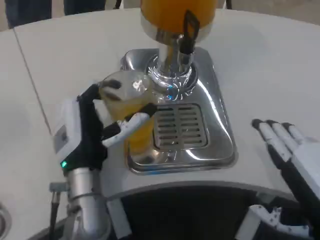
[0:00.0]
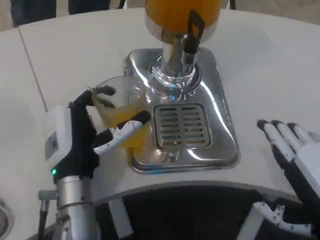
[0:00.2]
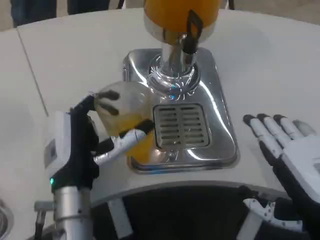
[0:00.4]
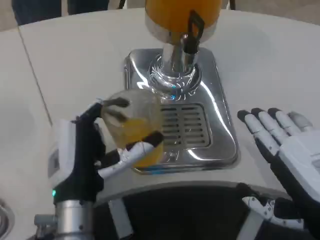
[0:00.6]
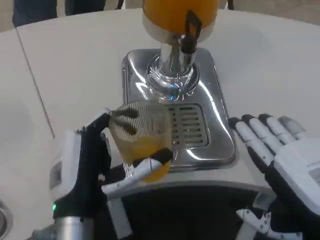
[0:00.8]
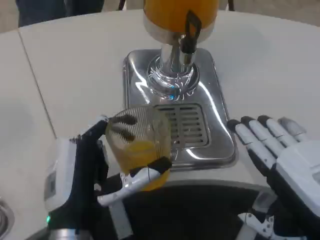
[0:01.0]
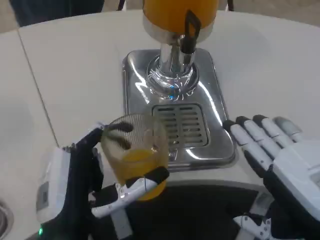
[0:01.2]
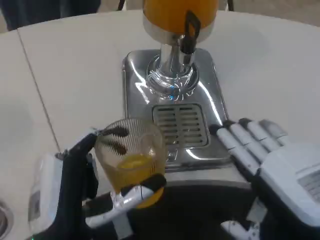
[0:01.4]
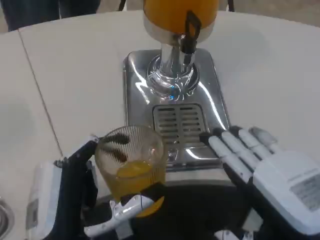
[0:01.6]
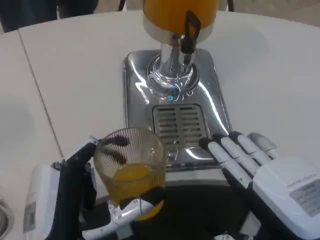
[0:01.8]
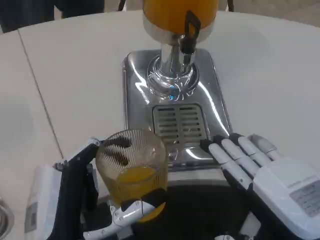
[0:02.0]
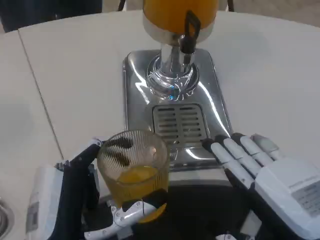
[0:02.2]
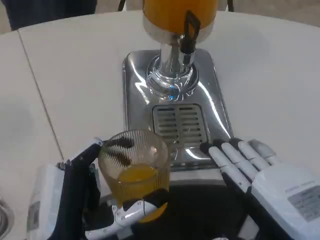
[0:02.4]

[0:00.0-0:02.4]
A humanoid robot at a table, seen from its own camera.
Task of the whole recording: Grasp the cup under the faucet to collect the drink, then remove the cup.
0.0 to 1.2 s: The left hand is displaced backward by some 10 cm.
1.2 to 2.4 s: The hands stay close to where they were, moving slightly.

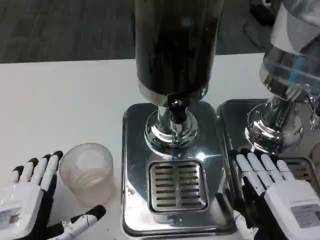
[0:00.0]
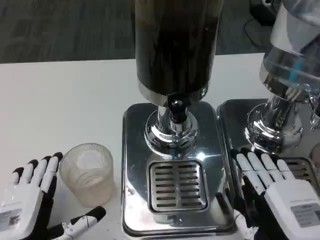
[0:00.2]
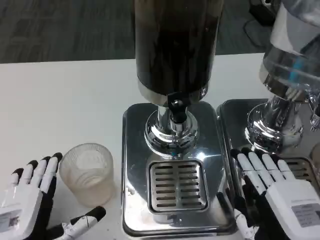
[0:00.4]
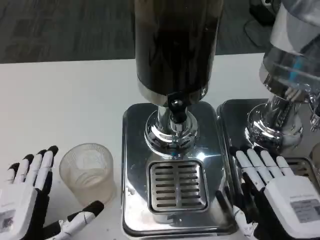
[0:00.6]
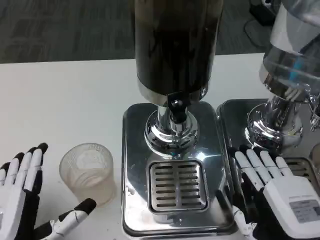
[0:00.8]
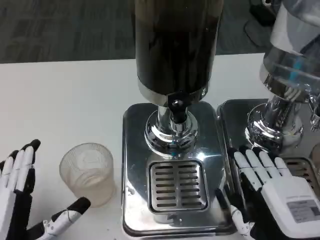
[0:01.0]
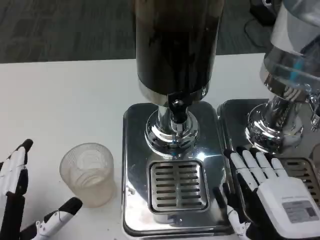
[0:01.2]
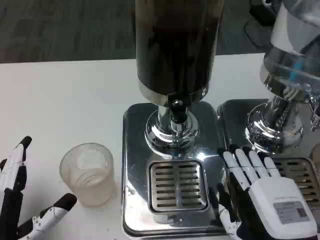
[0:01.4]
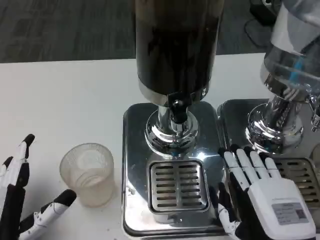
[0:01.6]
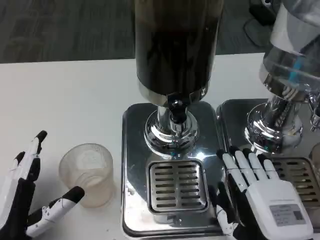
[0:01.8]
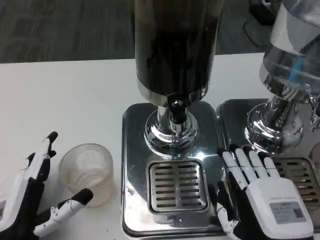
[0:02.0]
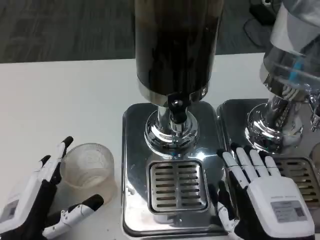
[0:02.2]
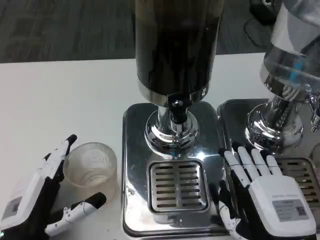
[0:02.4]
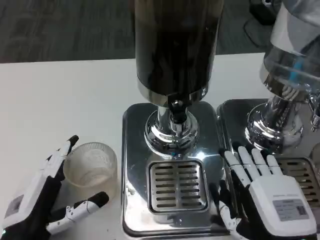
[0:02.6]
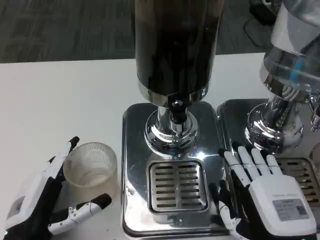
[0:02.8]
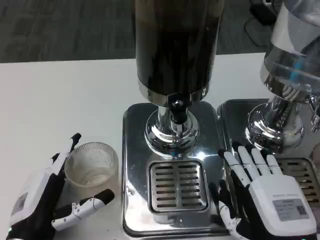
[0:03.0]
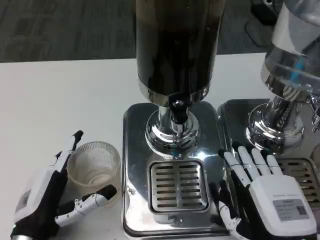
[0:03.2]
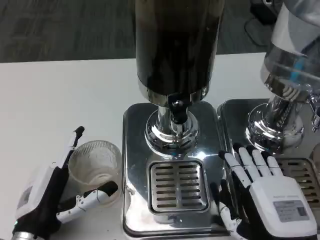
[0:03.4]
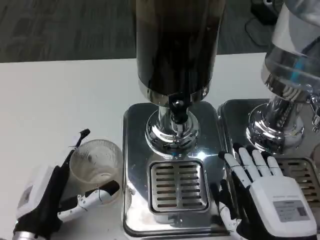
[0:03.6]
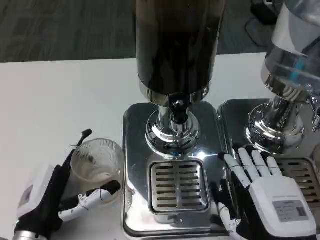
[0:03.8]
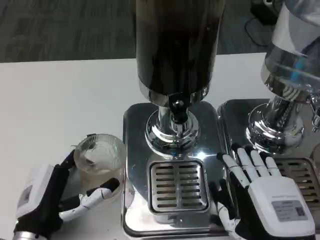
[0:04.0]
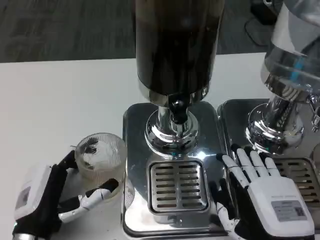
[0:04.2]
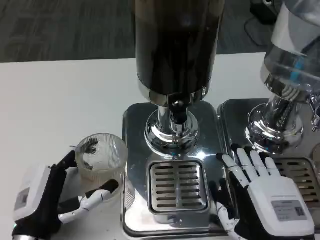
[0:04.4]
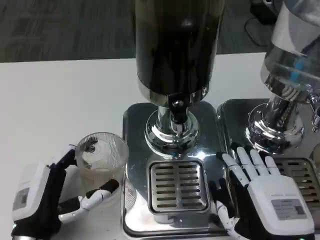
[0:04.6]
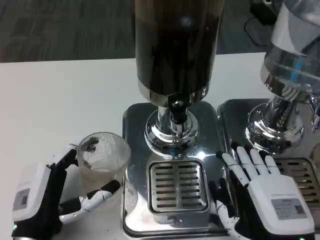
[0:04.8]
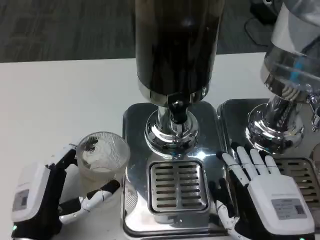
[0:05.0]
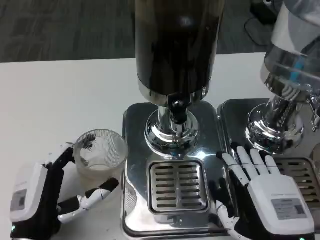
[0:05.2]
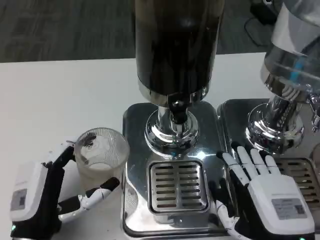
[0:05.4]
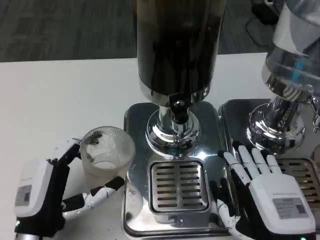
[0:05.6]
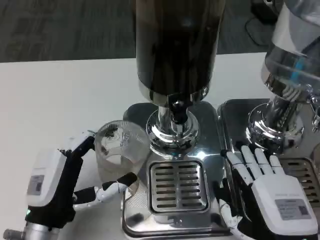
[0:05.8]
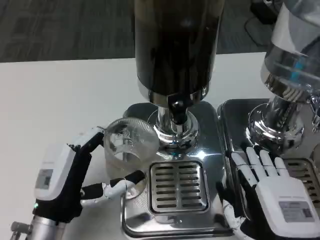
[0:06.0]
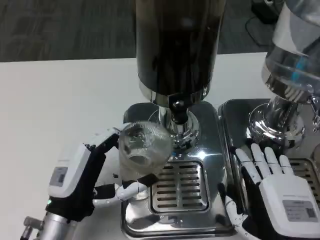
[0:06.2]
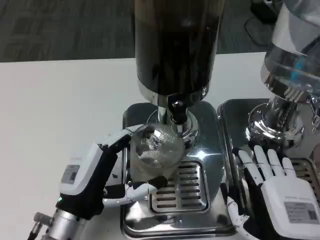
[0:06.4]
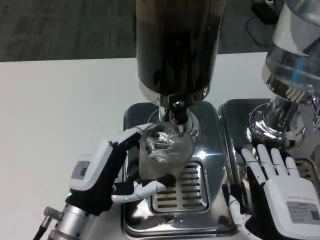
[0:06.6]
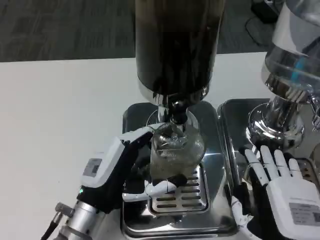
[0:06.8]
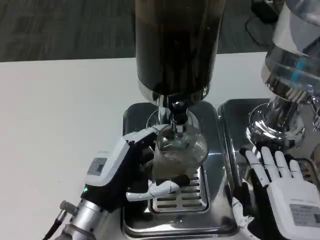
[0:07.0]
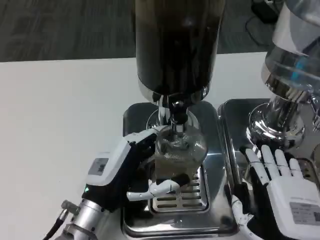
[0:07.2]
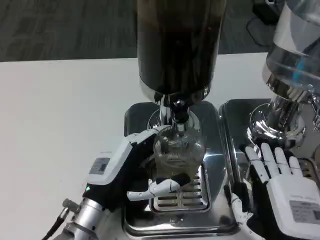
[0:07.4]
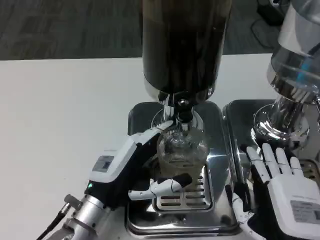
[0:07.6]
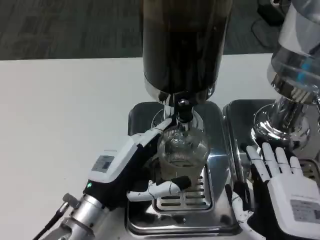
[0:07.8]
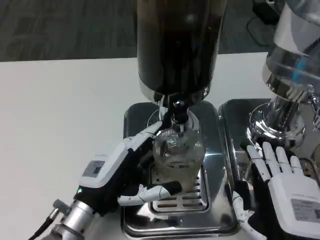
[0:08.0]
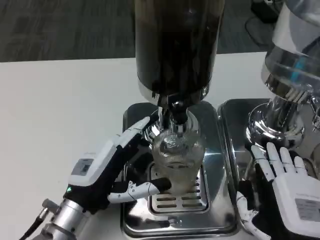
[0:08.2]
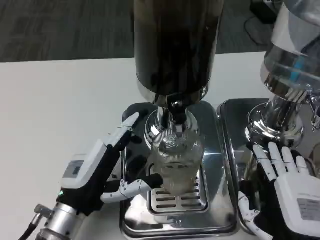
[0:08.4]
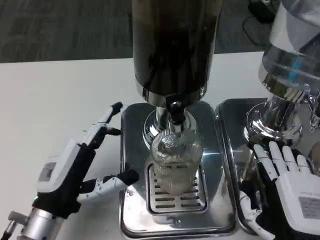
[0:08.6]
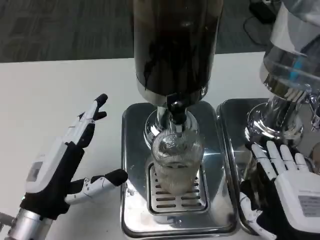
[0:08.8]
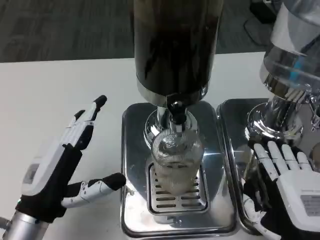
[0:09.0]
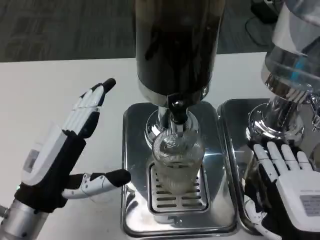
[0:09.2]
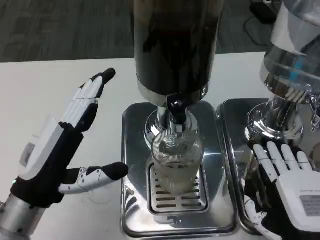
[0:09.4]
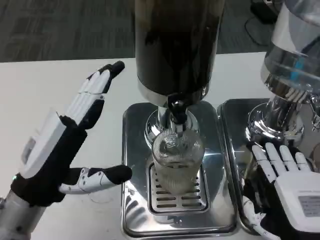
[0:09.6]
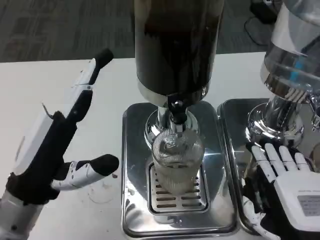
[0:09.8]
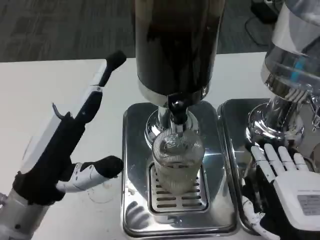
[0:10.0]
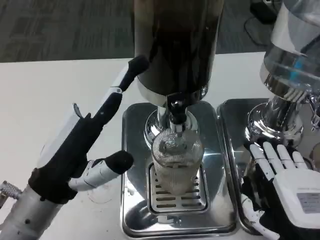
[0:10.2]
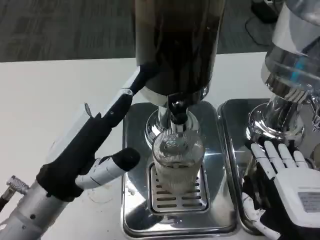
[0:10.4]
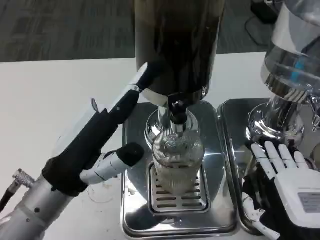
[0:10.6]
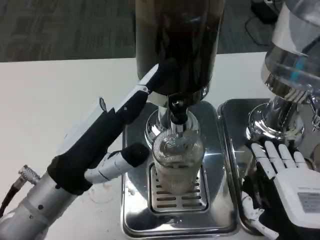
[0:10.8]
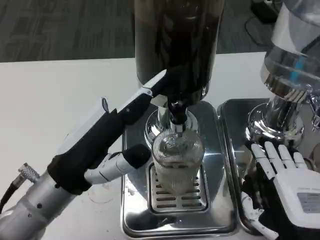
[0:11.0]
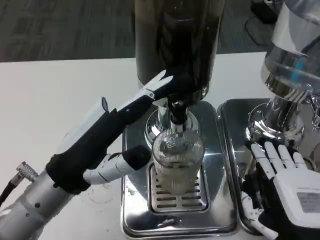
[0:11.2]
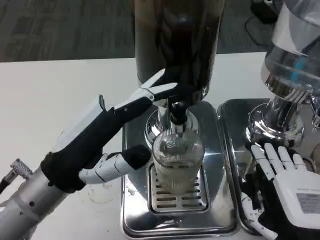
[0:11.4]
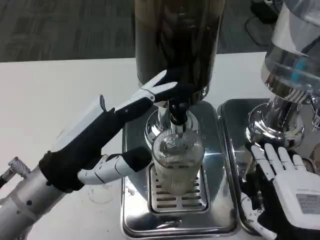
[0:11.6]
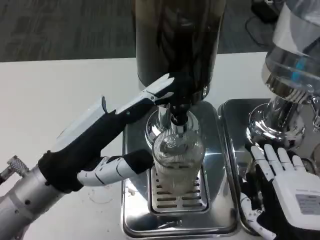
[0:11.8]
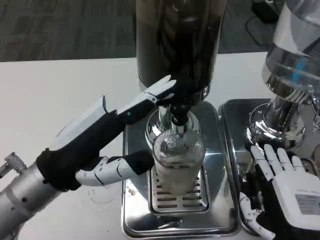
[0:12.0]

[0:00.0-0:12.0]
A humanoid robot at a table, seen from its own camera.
Task of the whole recording: Grasp the cup under the faucet to collect the drink, then remove the cup.
0.0 to 1.6 s: The left hand shifts by about 5 cm.
1.6 to 4.4 s: The hands stay close to where they were, moving slightly.
6.0 to 7.6 s: The left hand ends up some 5 cm from where it was.
7.6 to 9.0 s: The left hand heads to the left, covering some 5 cm.
9.0 to 10.4 s: The left hand shifts some 5 cm upward.
10.4 to 12.0 s: The hands stay close to where they were, moving slightly.

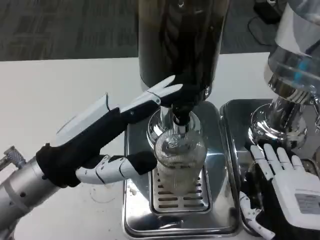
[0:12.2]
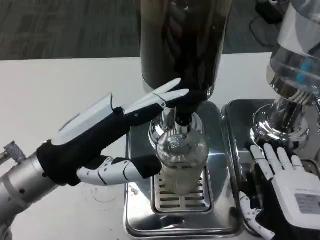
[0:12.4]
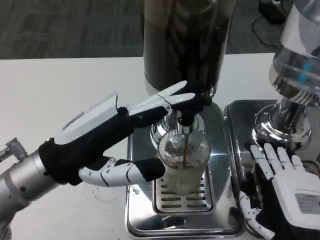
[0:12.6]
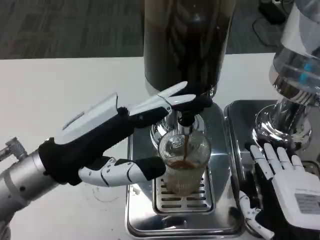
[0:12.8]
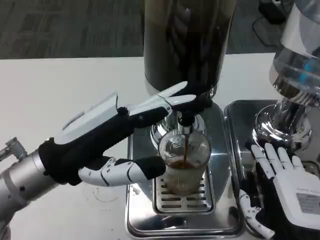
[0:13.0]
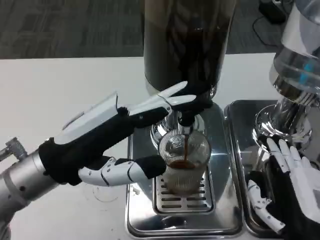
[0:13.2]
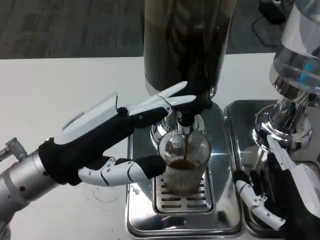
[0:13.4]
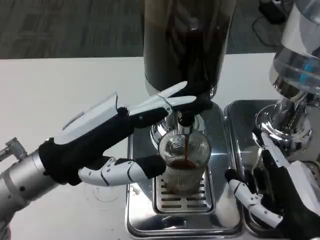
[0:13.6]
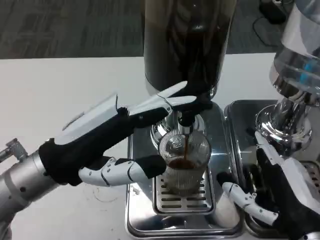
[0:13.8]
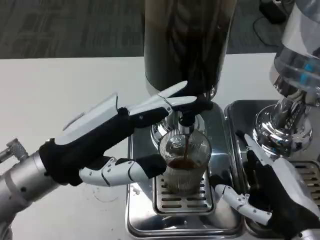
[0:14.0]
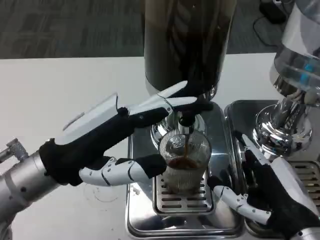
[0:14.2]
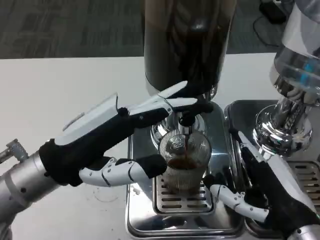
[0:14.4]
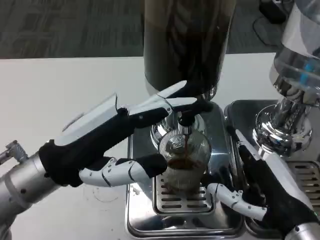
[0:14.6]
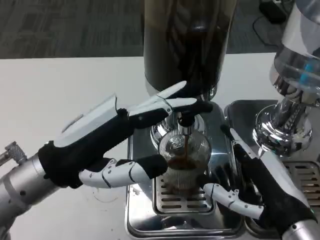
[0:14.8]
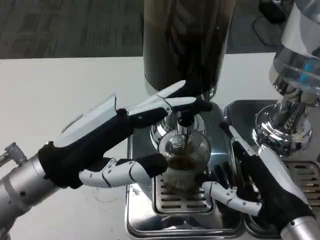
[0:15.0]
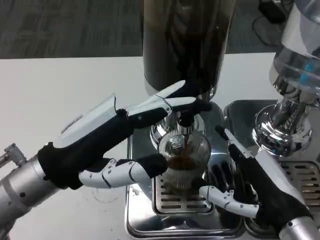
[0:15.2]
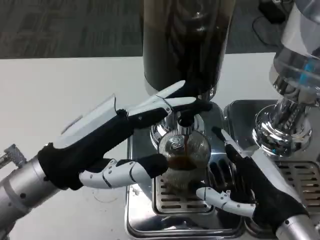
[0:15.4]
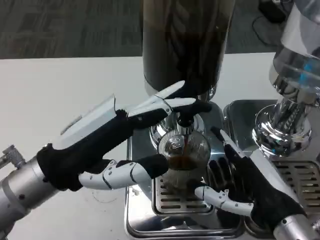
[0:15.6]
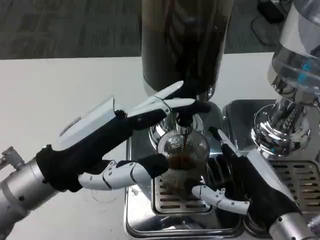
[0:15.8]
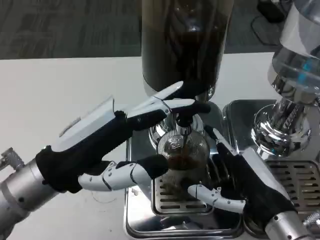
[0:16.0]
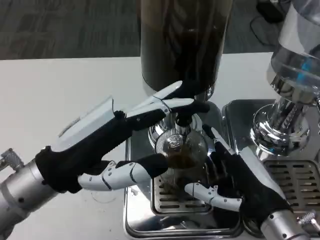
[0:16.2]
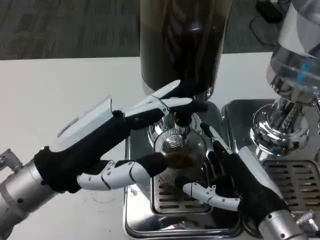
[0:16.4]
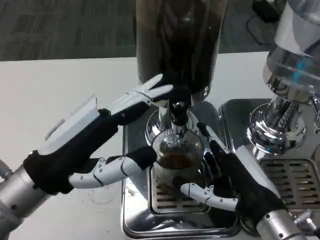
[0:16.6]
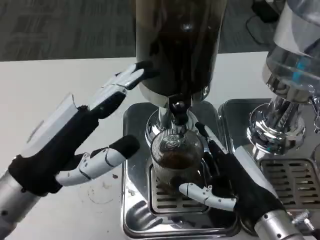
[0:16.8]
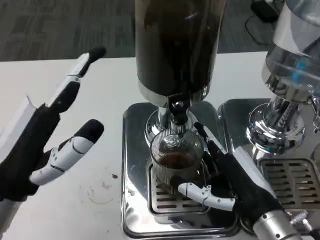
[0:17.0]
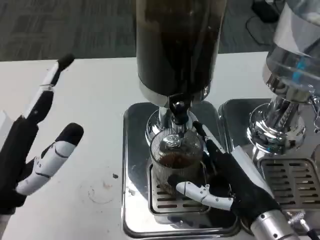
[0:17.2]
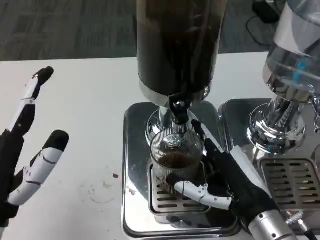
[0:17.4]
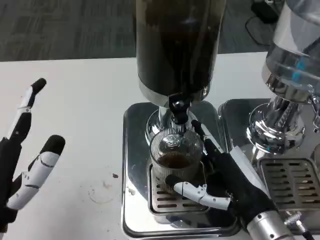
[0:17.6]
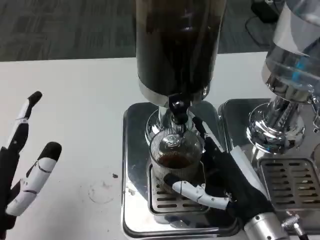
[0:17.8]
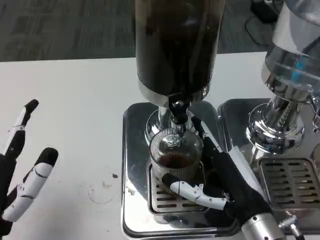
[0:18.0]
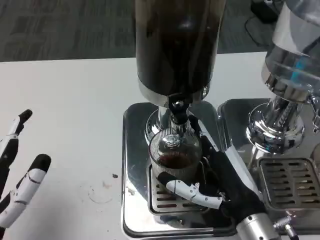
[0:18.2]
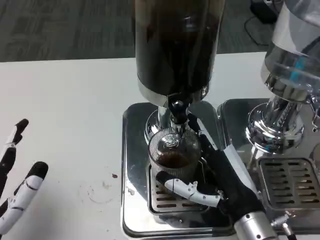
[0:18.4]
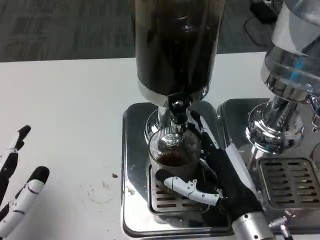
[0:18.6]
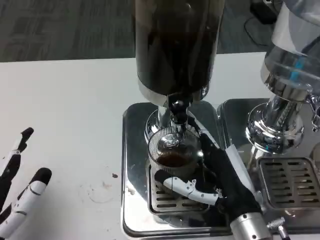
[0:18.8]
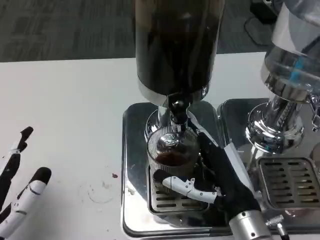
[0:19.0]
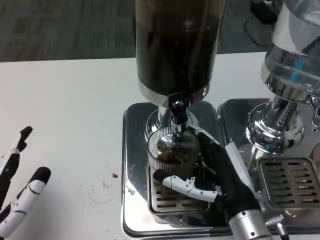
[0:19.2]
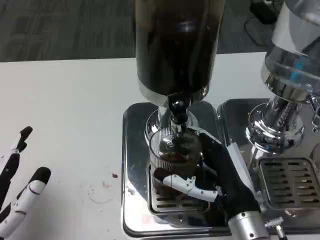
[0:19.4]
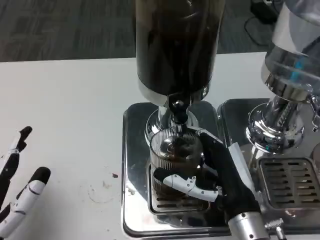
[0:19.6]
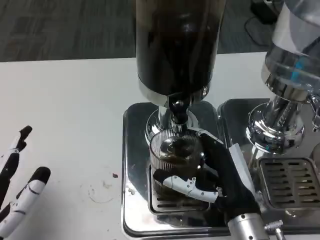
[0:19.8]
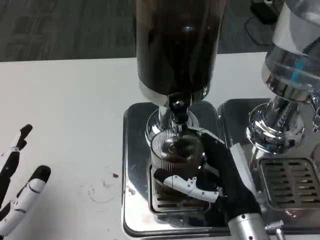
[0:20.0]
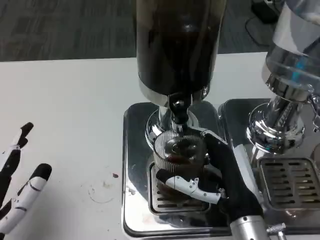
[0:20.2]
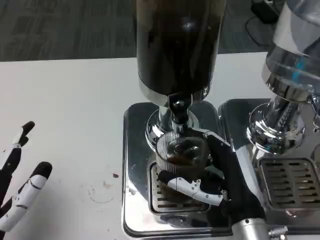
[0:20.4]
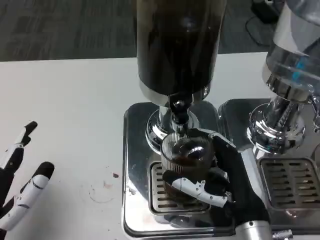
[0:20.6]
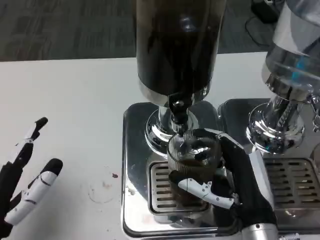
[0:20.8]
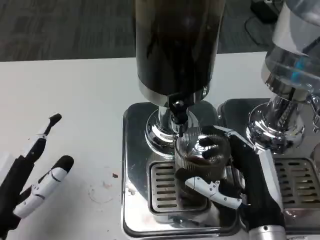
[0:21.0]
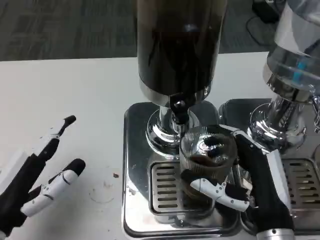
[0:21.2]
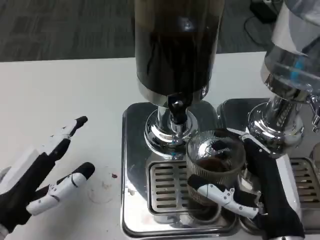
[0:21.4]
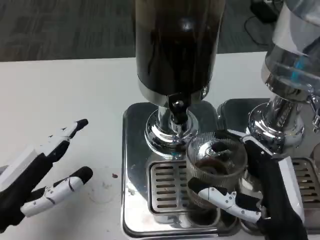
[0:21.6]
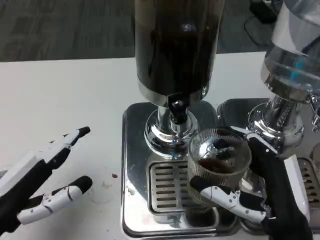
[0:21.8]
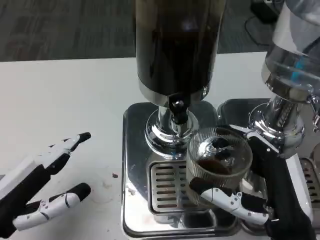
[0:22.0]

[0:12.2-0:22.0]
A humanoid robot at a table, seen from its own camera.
Task of the whole recording: Grasp the cup under the faucet to collect the drink, then remove the cup.
13.6 to 15.0 s: There are only small adjustments of the hands.
16.4 to 17.8 s: The left hand shifts about 10 cm backward and downward.
17.8 to 20.6 s: The hands move only a little.
20.6 to 22.0 s: The right hand ends up some 5 cm from where it was. The left hand ends up roughly 5 cm from where it was.
